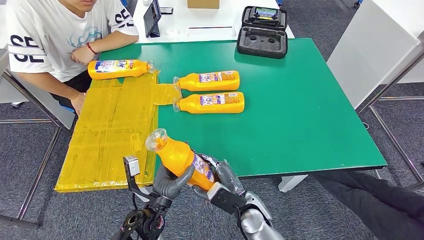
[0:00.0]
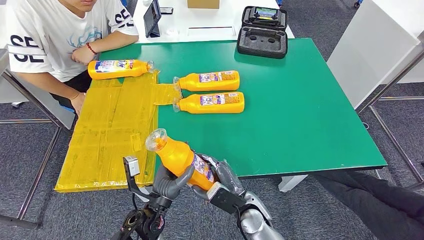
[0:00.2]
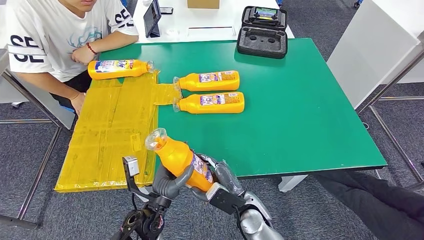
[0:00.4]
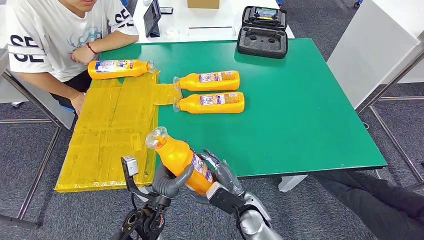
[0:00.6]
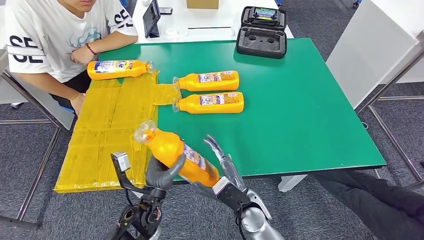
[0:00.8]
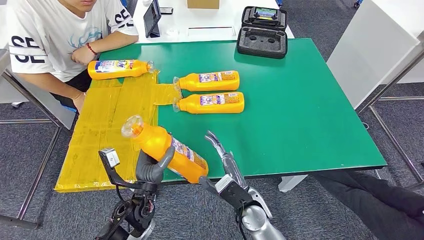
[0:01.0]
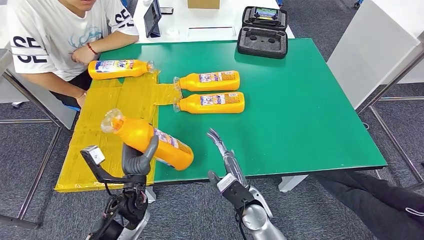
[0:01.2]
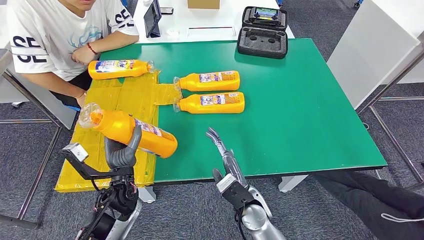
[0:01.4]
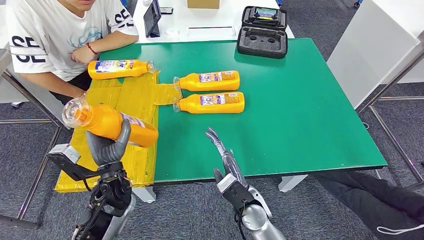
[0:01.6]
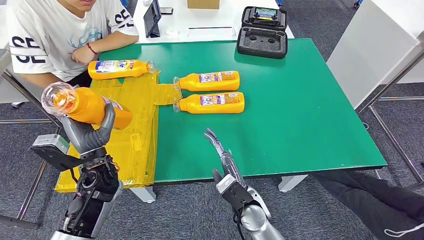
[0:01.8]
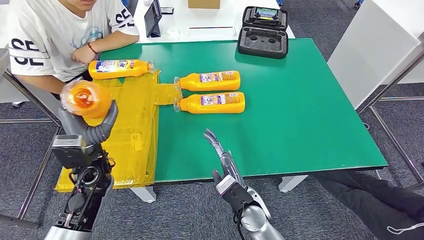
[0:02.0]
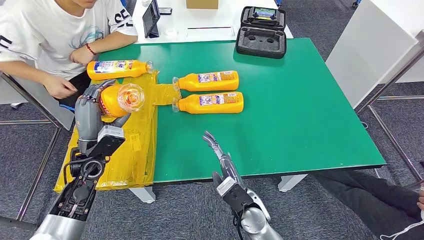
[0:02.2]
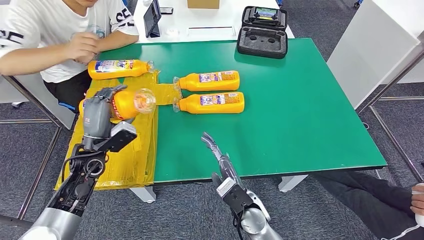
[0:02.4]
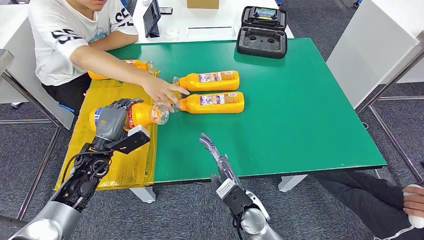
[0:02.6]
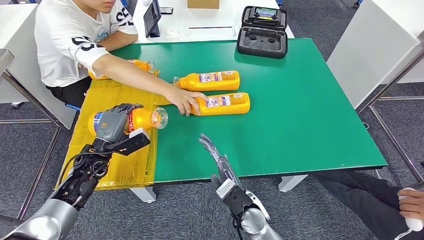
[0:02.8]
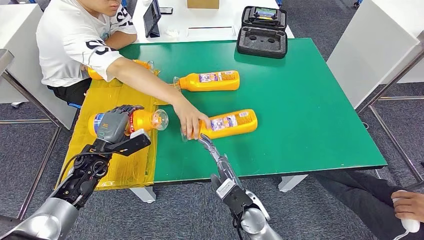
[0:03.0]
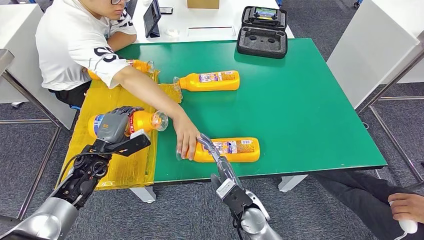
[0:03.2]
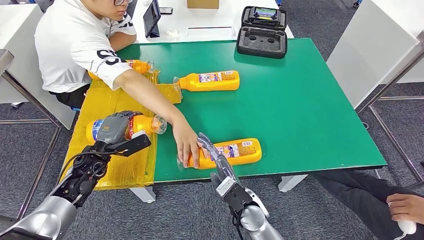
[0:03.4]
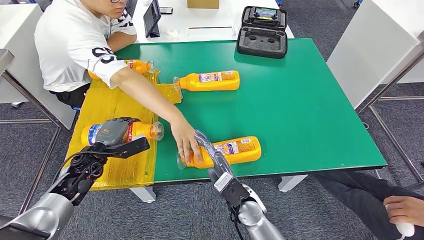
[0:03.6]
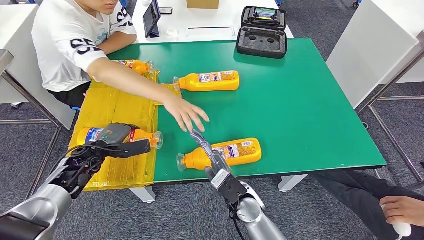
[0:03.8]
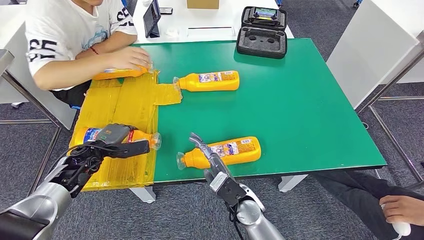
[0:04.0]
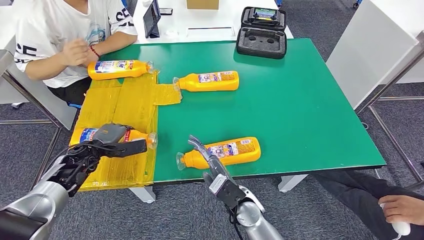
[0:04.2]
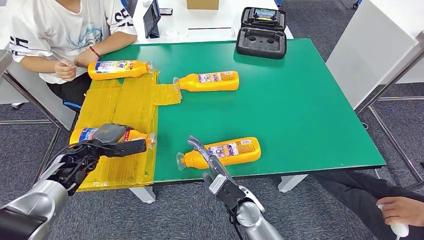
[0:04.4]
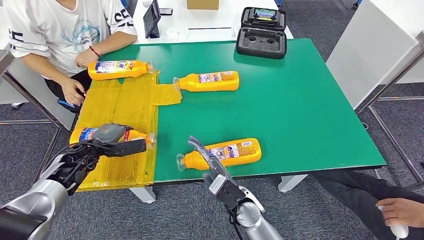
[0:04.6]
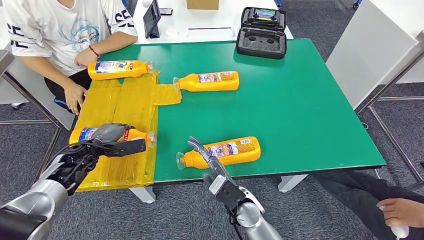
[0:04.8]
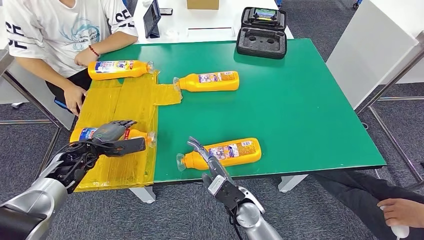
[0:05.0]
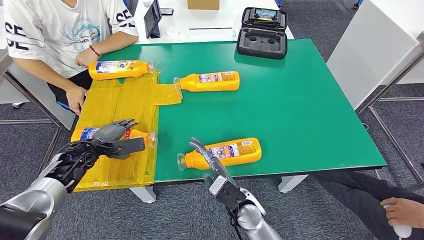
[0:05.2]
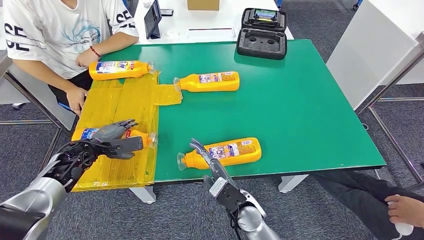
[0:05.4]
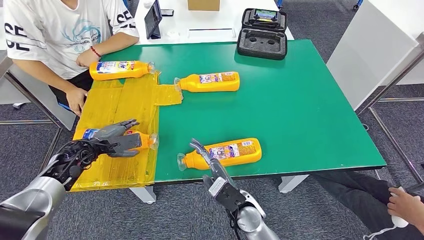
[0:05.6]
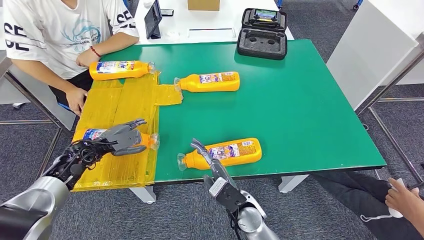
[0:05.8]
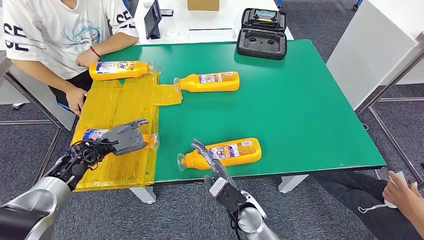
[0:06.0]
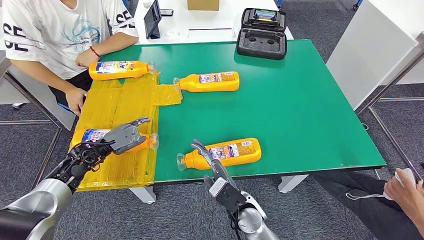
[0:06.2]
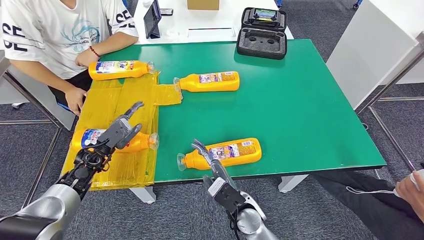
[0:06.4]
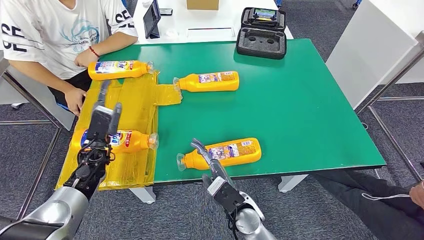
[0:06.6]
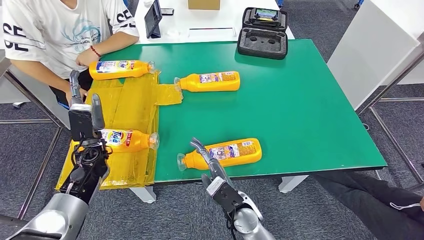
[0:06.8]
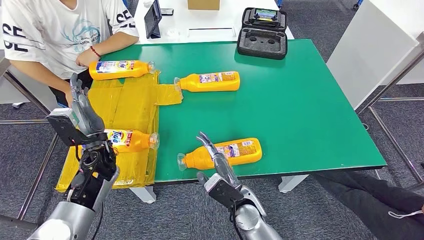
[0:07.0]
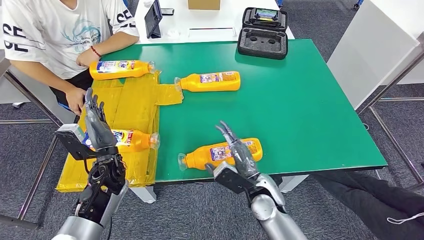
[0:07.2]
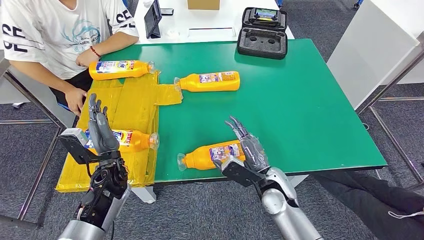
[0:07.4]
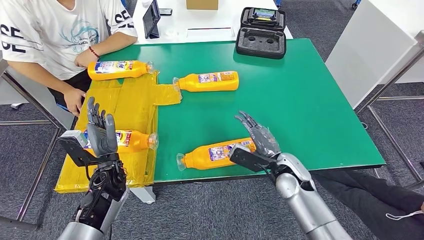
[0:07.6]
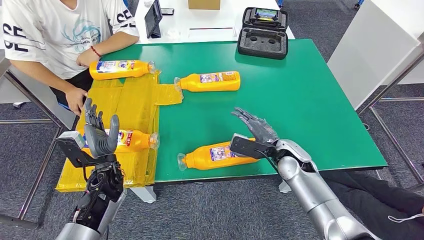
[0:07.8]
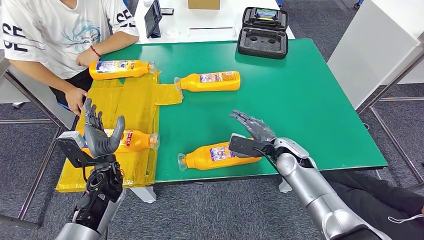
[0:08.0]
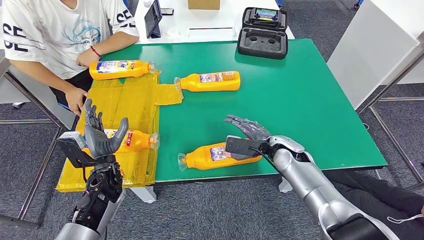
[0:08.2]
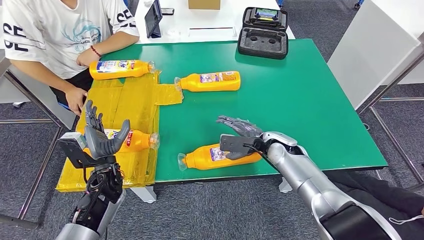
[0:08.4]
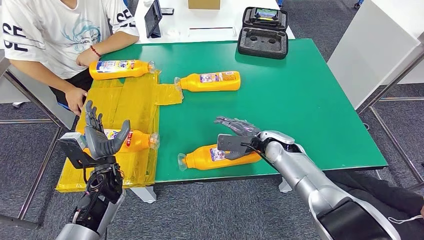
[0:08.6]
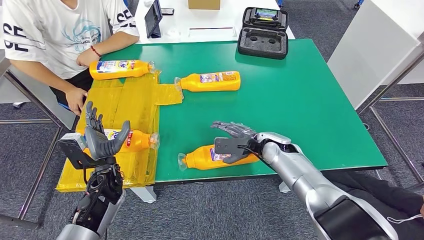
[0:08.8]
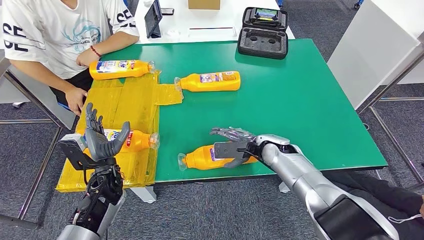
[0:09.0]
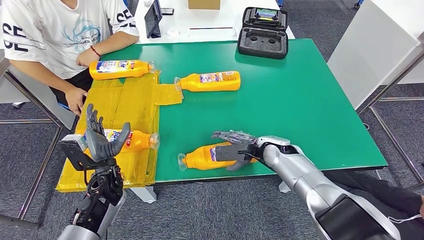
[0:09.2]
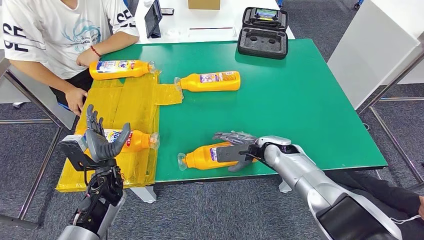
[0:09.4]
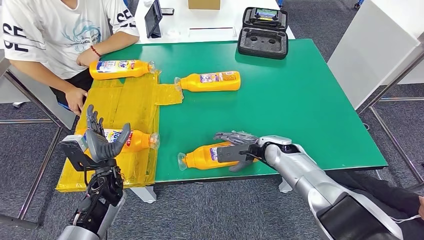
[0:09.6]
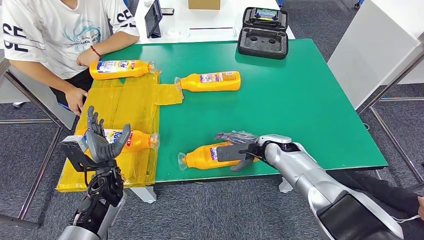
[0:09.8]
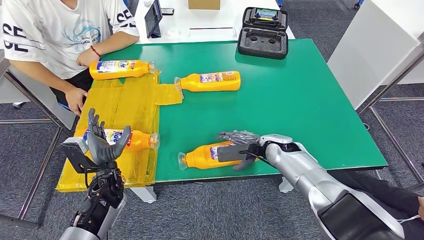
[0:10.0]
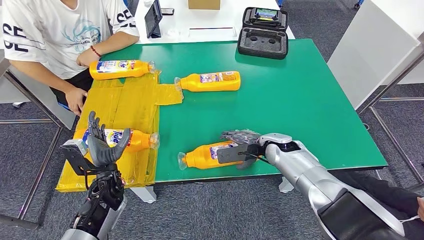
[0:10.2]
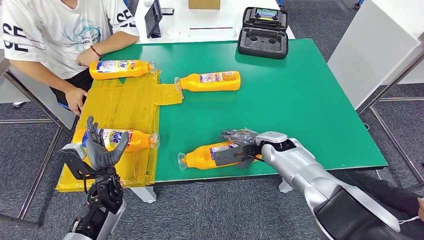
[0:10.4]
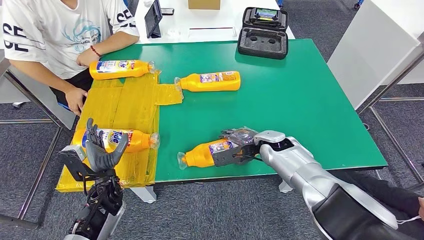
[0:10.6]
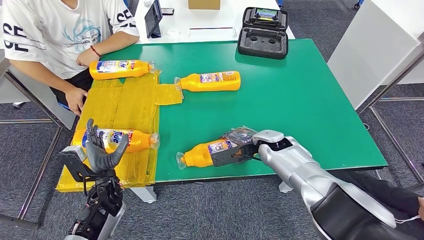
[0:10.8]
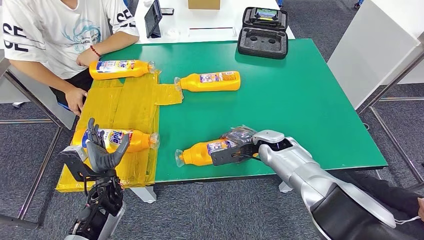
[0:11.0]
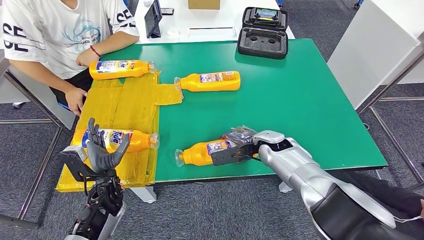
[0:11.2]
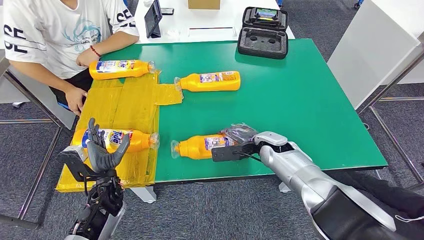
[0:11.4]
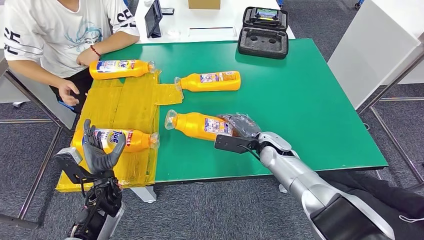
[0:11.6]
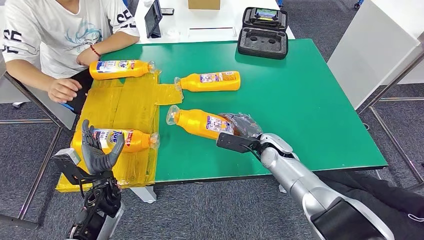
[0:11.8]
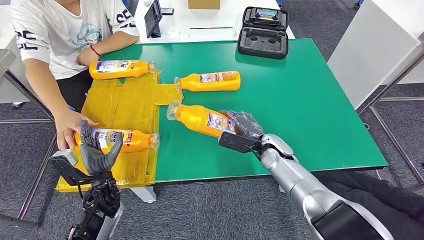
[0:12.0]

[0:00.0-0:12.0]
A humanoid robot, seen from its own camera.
Step, 0:00.0 to 0:03.2: Flip the fast-moving consumer goods bottle to the front side.
0:00.0 to 0:01.6: The left hand travels to the left, forward and upward by some 15 cm.
0:07.6 to 0:09.0: The right hand heads forward, covering roughly 10 cm.

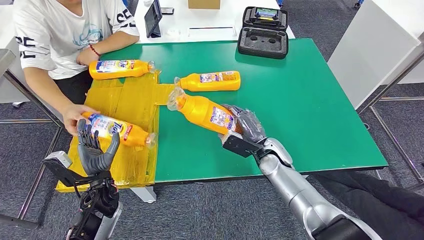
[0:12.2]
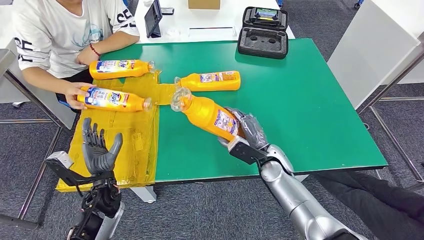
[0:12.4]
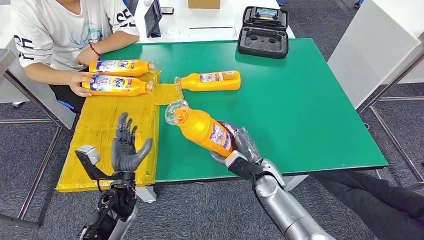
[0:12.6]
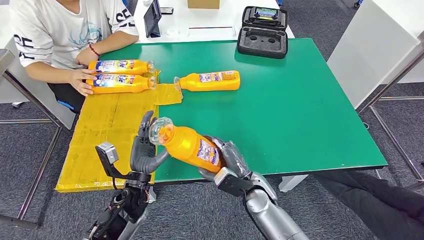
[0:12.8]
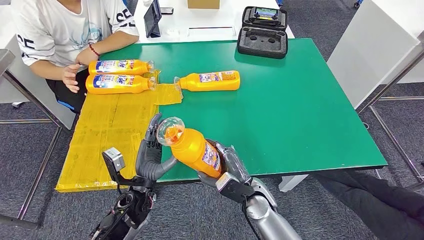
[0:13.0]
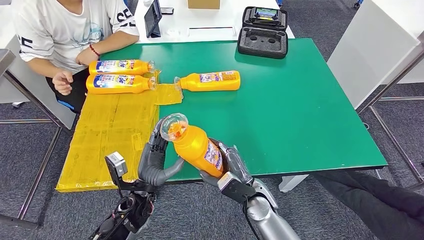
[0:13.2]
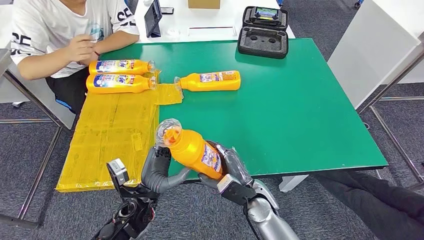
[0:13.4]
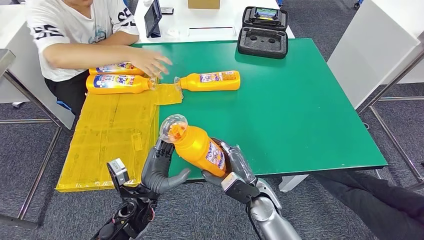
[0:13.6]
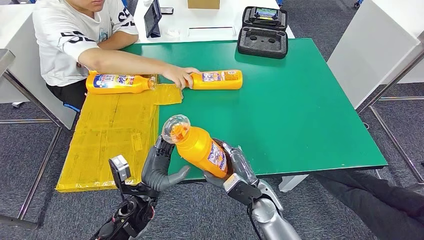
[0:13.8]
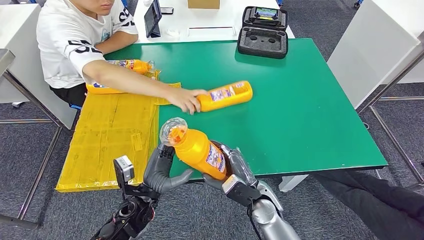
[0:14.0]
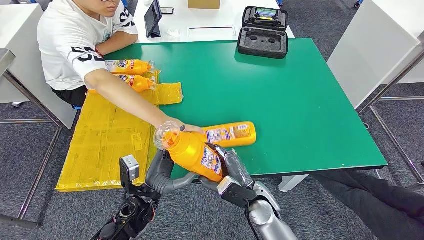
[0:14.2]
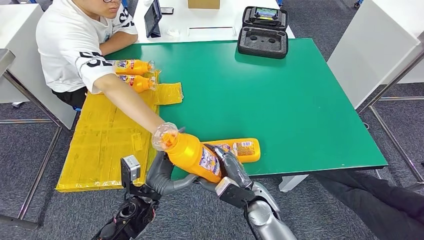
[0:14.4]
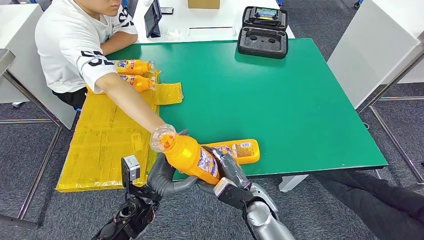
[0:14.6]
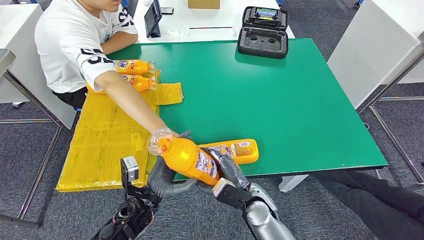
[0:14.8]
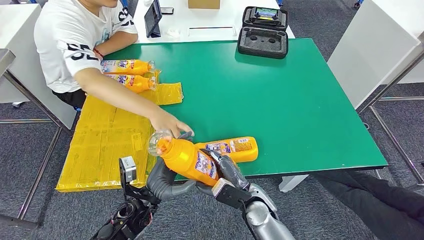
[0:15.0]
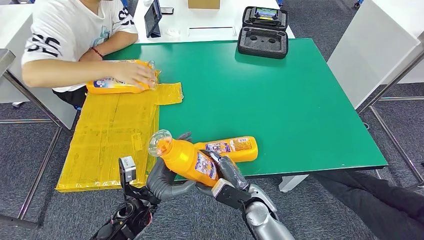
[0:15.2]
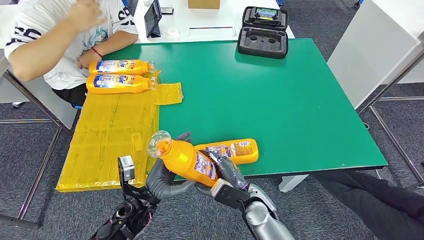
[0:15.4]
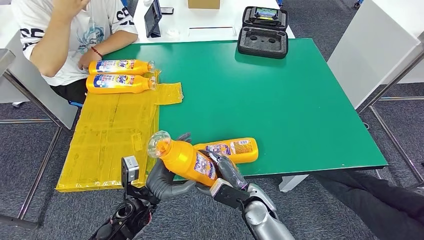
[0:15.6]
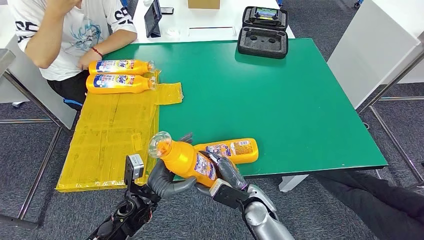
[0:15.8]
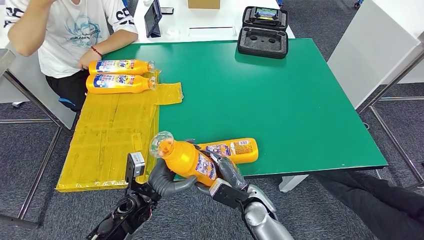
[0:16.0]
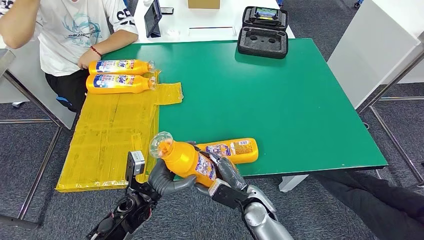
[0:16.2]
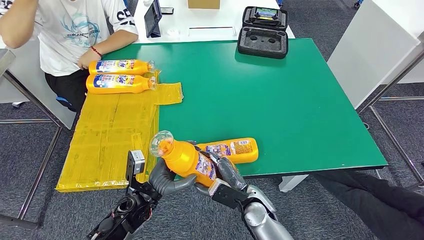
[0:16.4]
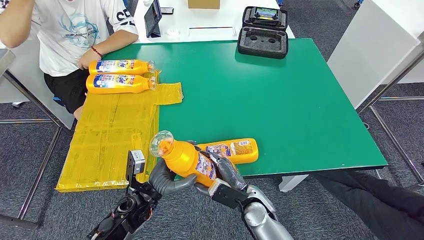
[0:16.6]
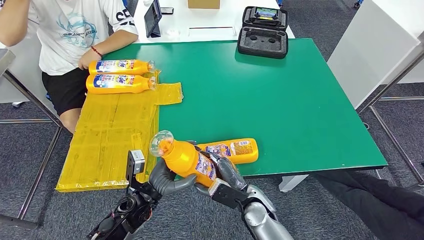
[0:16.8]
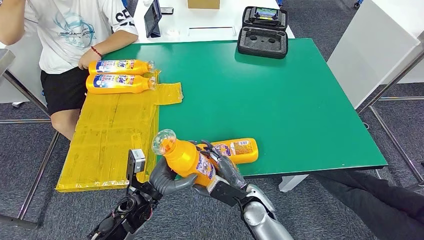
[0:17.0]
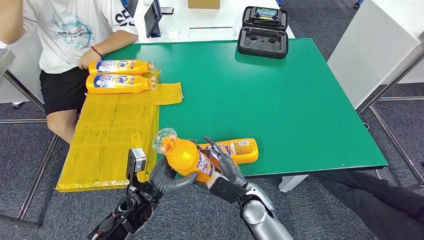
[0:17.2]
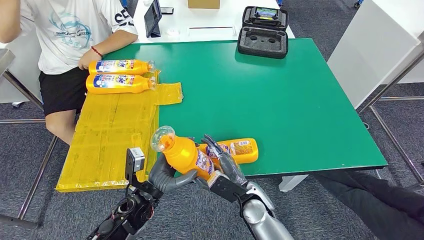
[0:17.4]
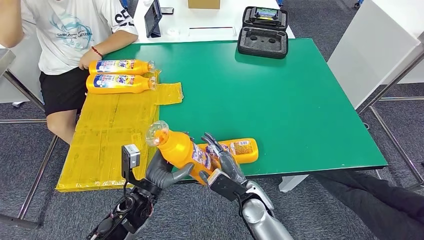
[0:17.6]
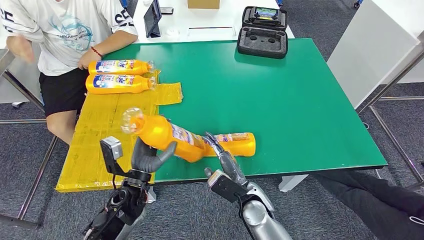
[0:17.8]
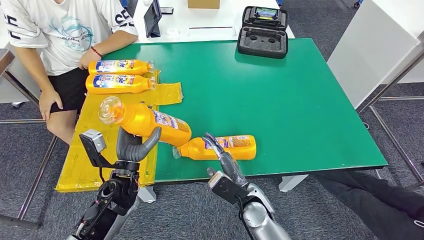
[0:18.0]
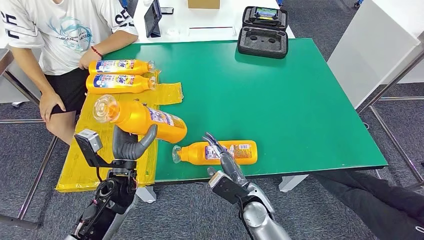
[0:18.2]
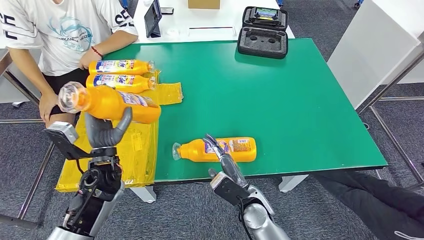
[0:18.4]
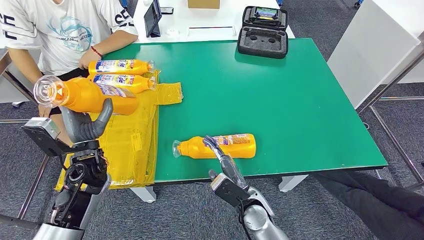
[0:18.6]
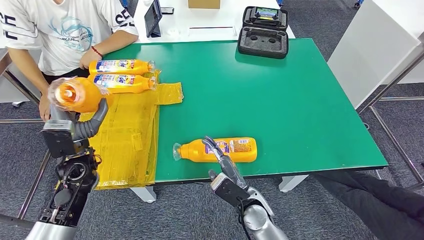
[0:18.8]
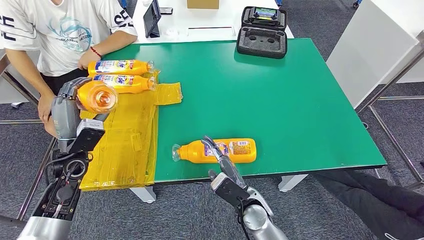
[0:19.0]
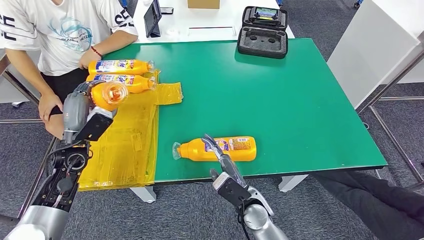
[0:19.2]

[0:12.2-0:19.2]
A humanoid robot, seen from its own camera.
0:13.6 to 0:16.4: The hands make only small movements.
0:17.8 to 0:19.2: The left hand shifts approximately 20 cm to the left and forward.
